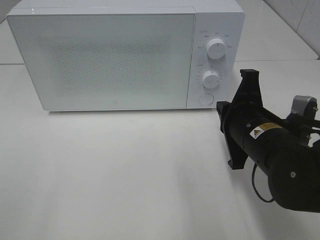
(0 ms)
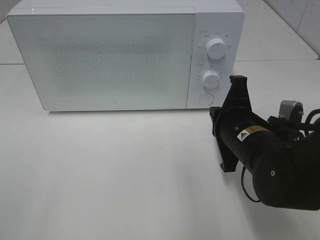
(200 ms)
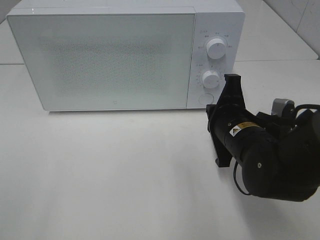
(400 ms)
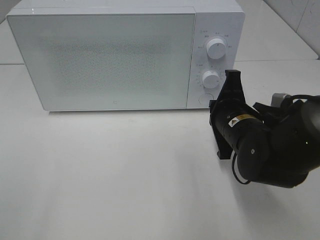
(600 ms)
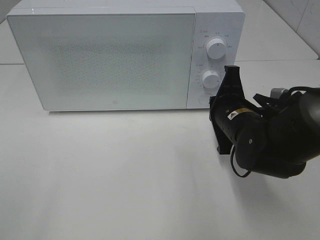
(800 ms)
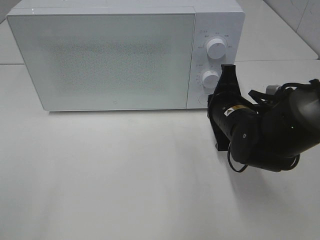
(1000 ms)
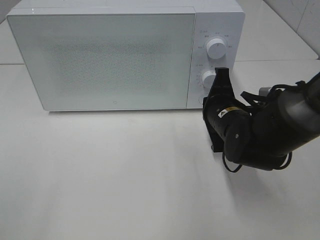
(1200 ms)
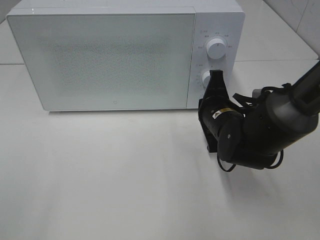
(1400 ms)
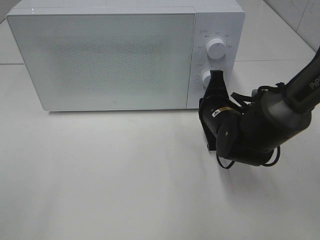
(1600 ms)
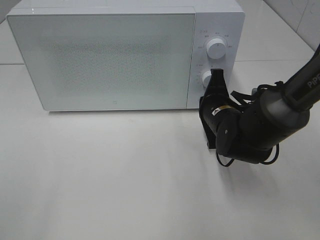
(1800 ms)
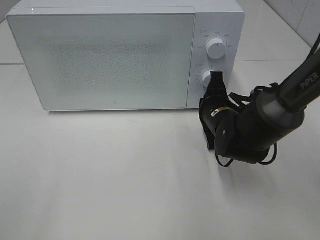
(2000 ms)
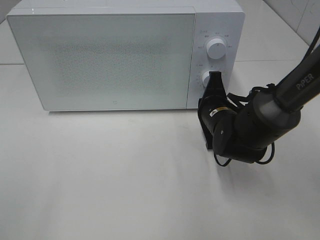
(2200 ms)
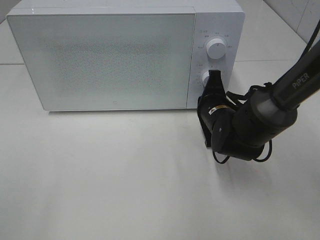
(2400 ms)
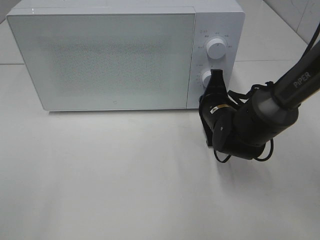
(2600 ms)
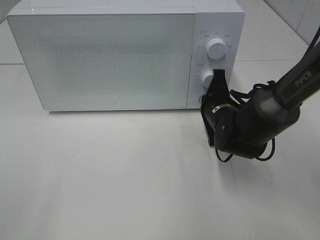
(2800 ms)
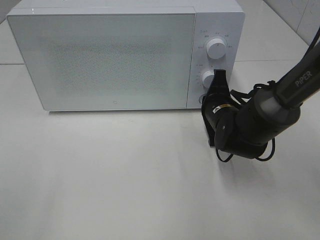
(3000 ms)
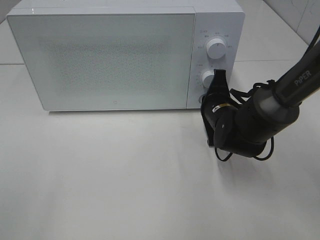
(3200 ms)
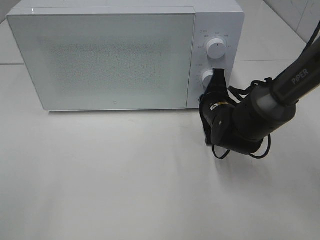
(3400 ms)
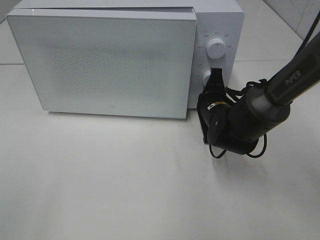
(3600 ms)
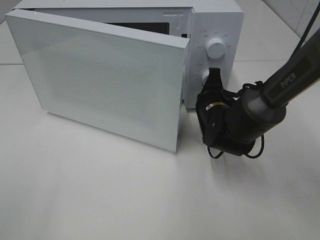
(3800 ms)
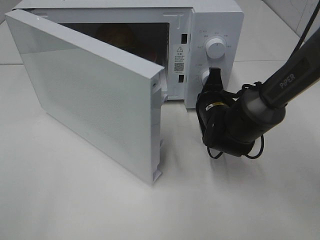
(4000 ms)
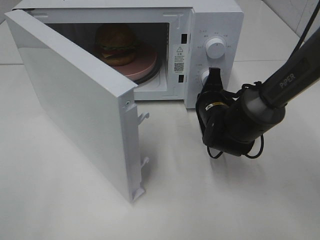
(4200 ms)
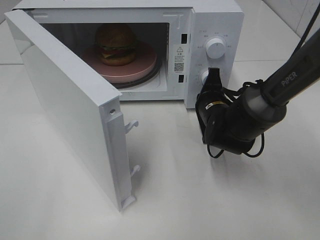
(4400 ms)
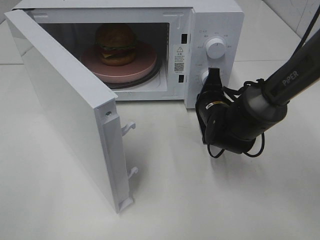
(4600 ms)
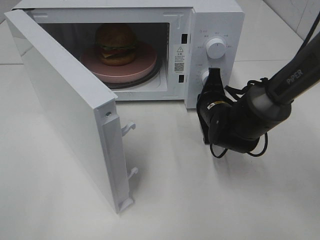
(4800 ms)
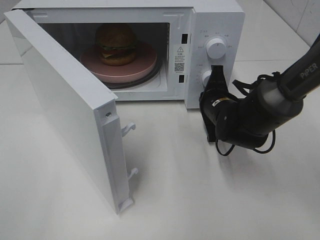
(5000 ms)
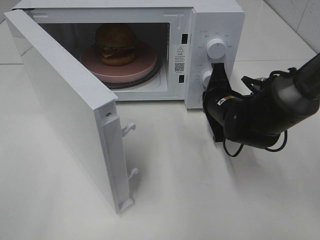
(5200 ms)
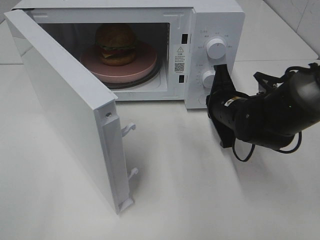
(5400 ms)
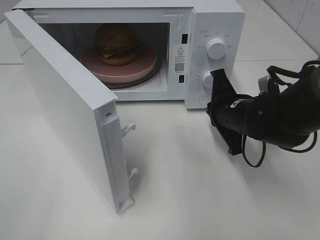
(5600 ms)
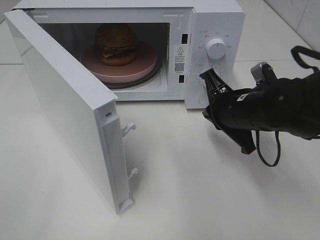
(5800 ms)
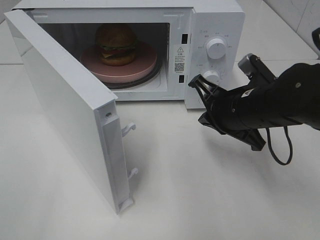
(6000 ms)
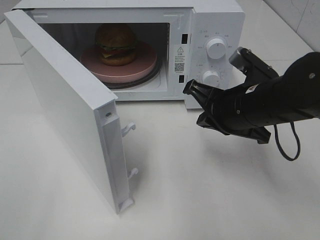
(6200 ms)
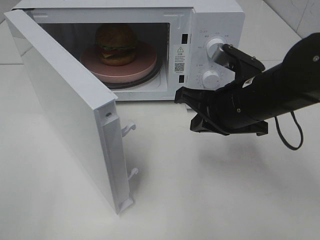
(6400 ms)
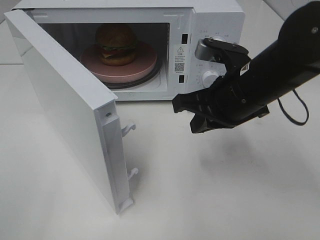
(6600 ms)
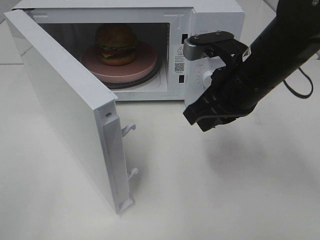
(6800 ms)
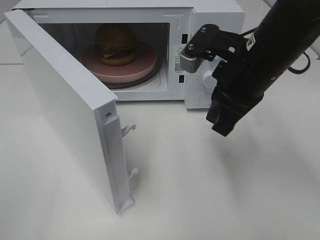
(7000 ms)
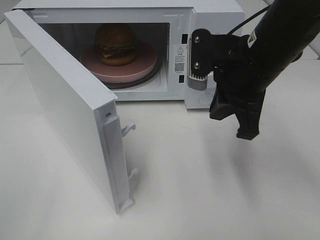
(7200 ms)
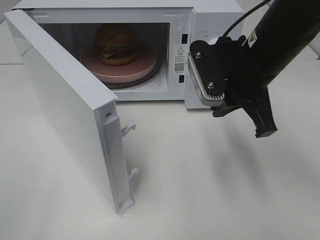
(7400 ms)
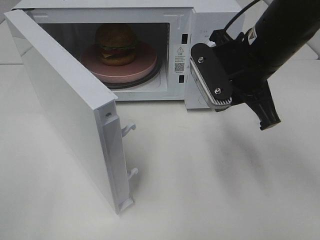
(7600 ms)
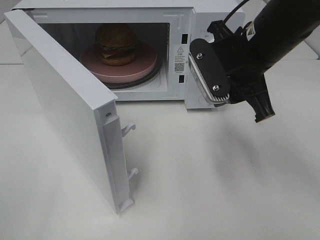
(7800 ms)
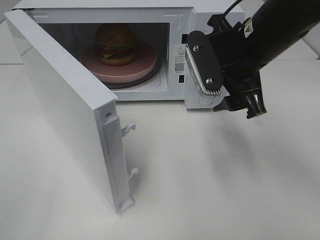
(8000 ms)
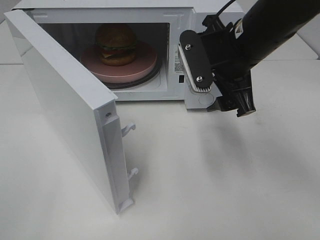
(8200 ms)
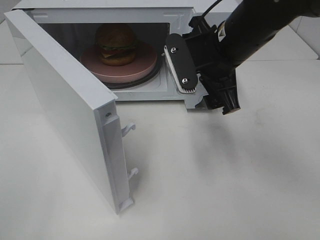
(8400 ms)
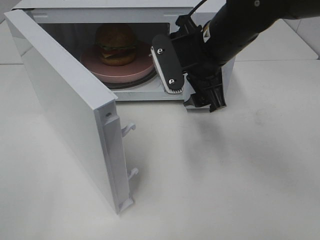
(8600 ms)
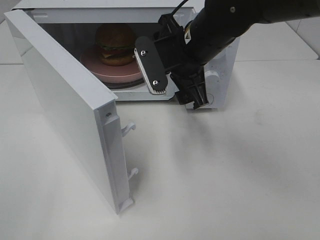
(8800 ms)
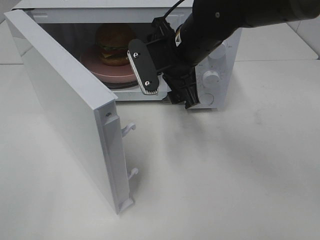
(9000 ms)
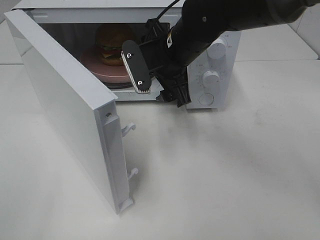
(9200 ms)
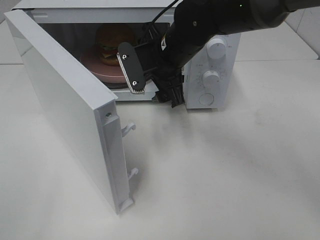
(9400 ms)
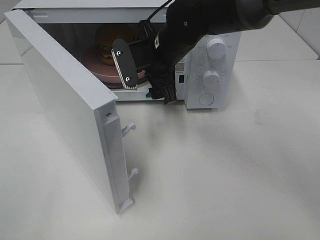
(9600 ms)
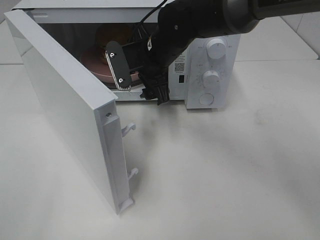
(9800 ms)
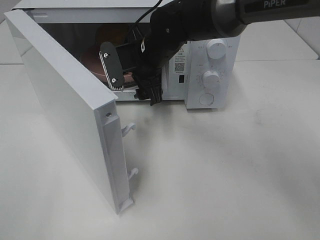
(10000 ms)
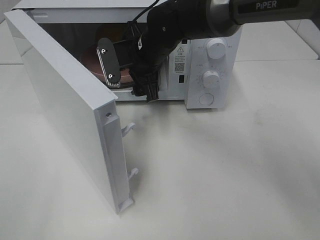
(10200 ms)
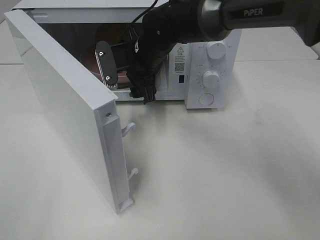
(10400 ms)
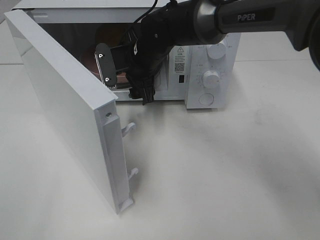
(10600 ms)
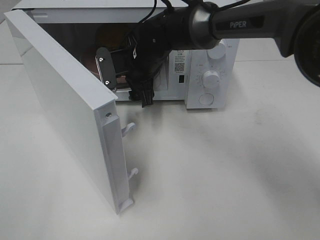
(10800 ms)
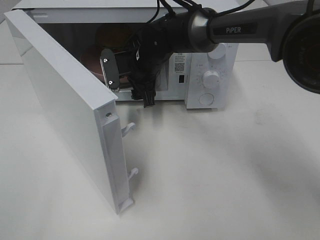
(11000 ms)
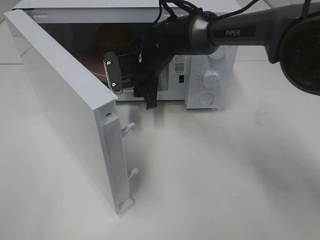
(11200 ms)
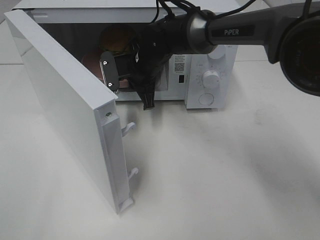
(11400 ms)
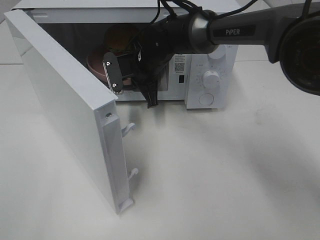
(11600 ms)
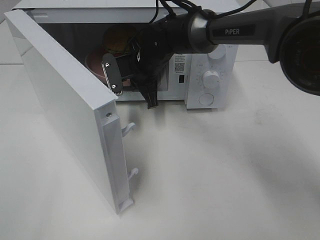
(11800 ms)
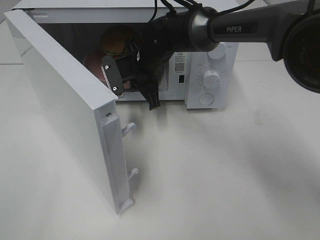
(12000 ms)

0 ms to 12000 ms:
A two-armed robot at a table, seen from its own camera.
Task of the whole recording: Heat the burger.
Step, 0 ms to 5200 ms: Right hand: press the switch.
Step, 5400 ms to 11400 ms: Right hand: grab the plate with the hamburger.
0 ms to 1600 ms: The right gripper travels forward and downward by about 10 cm.
1600 ms to 3000 ms: There are only small adjustments of the grippers.
4400 ms to 6000 ms: The right gripper heads backward and upward, covering approximately 10 cm.
6000 ms to 7600 ms: The right gripper travels upward by about 10 cm.
7600 ms to 9000 ms: The right gripper heads to the left and forward, covering about 10 cm, and opens up.
9000 ms to 10400 ms: The right gripper goes some 10 cm forward and to the left.
10400 ms to 12000 ms: The right gripper closes up.

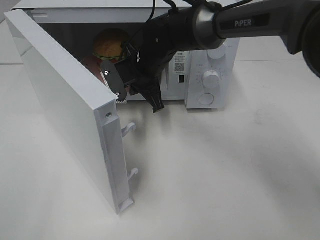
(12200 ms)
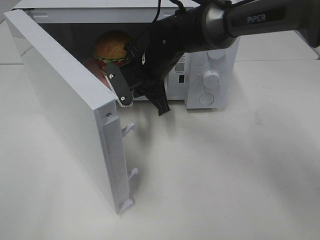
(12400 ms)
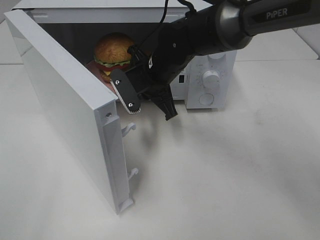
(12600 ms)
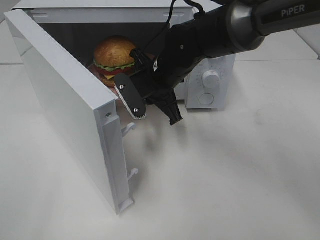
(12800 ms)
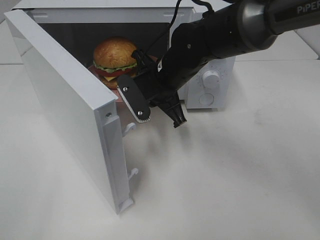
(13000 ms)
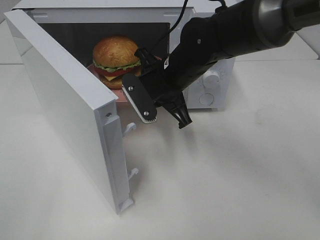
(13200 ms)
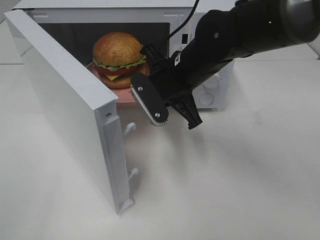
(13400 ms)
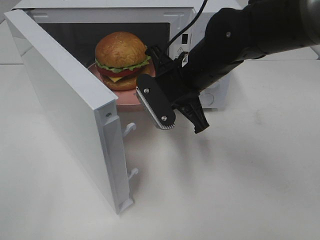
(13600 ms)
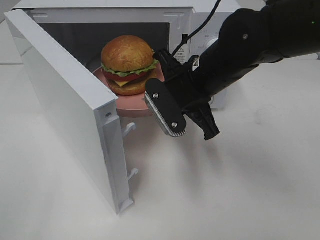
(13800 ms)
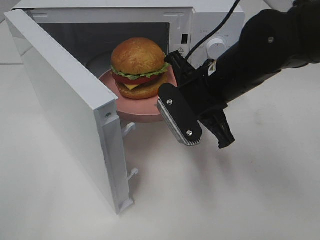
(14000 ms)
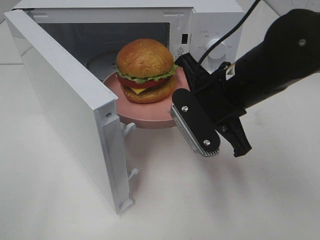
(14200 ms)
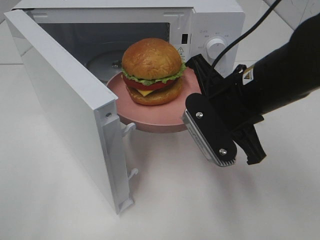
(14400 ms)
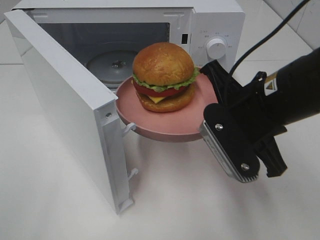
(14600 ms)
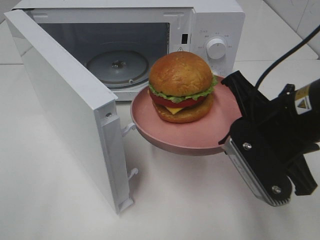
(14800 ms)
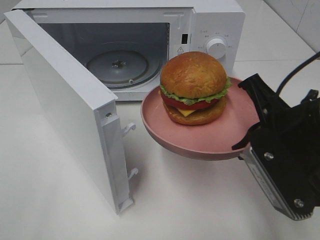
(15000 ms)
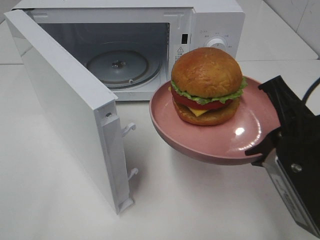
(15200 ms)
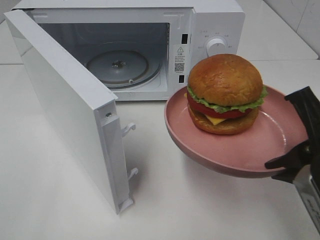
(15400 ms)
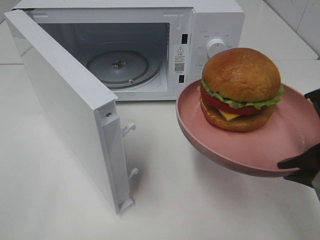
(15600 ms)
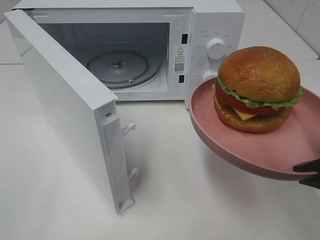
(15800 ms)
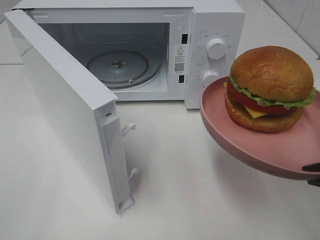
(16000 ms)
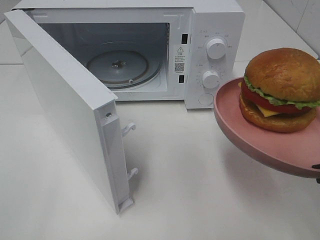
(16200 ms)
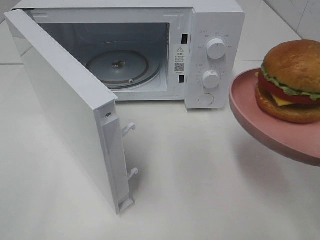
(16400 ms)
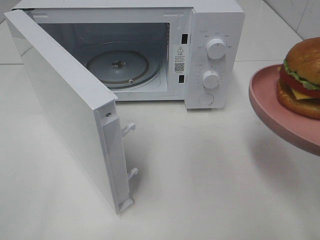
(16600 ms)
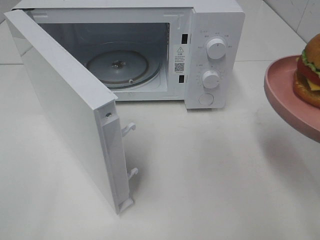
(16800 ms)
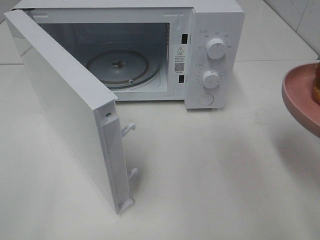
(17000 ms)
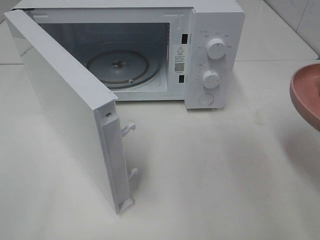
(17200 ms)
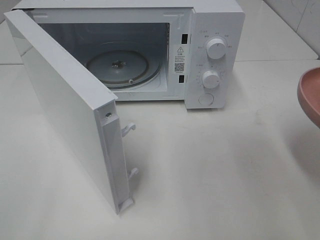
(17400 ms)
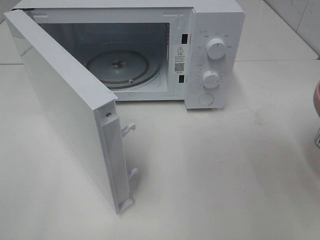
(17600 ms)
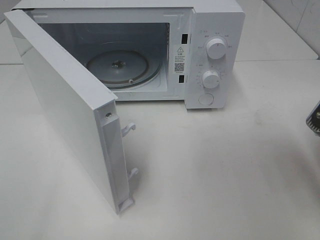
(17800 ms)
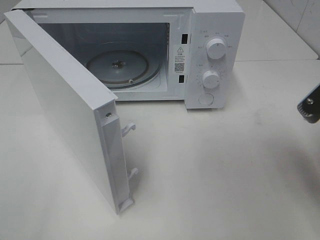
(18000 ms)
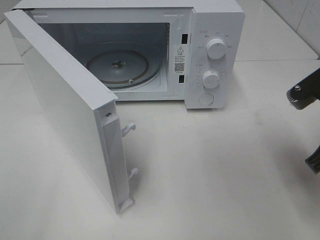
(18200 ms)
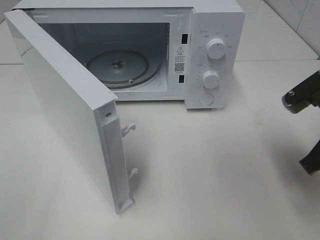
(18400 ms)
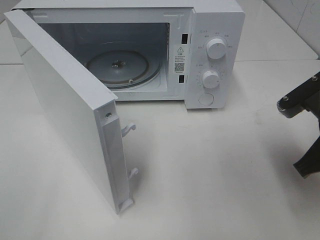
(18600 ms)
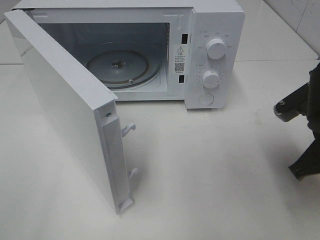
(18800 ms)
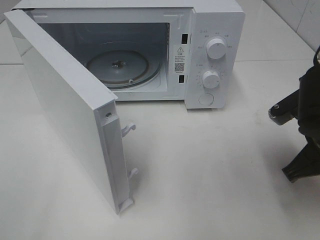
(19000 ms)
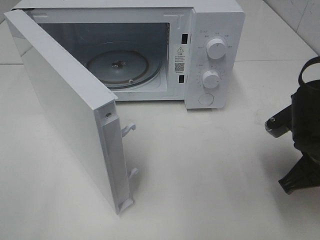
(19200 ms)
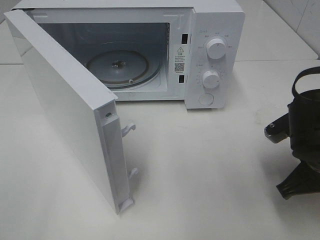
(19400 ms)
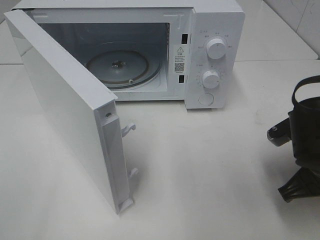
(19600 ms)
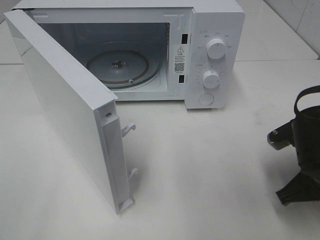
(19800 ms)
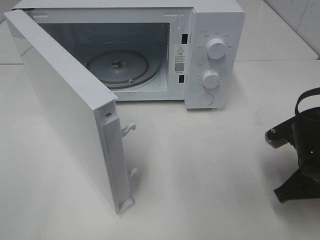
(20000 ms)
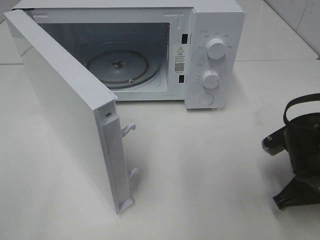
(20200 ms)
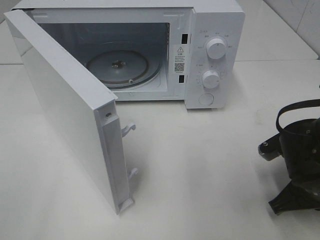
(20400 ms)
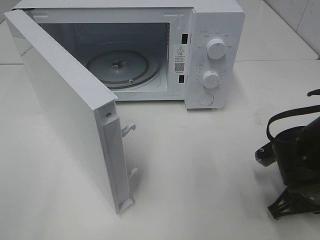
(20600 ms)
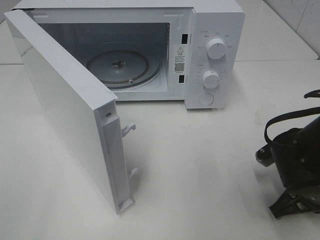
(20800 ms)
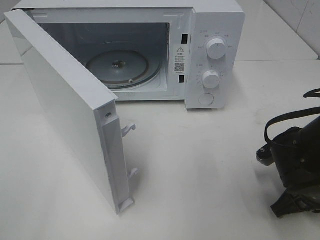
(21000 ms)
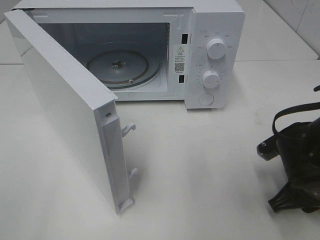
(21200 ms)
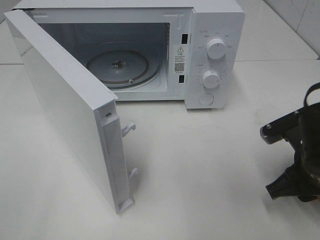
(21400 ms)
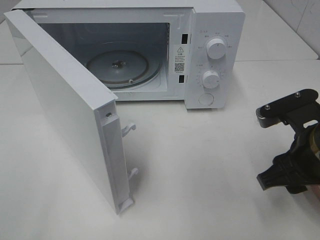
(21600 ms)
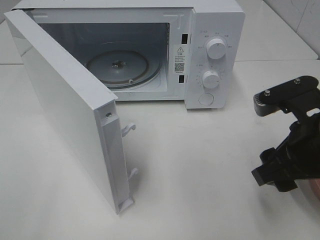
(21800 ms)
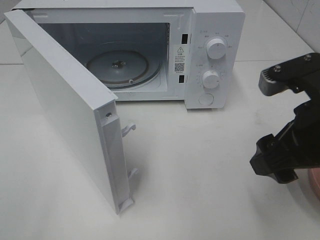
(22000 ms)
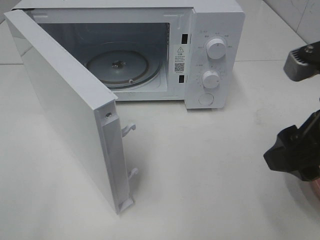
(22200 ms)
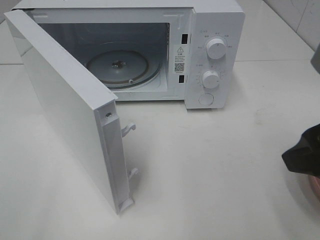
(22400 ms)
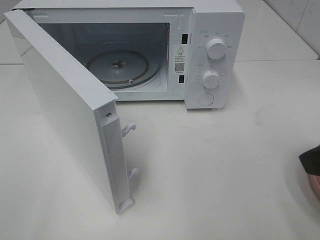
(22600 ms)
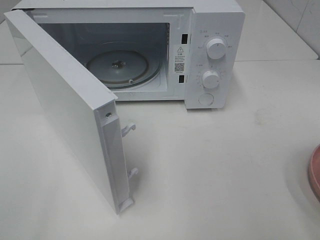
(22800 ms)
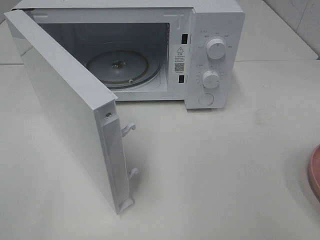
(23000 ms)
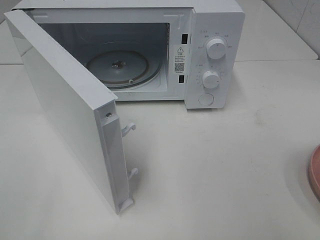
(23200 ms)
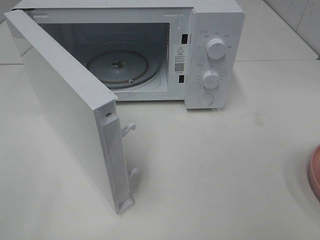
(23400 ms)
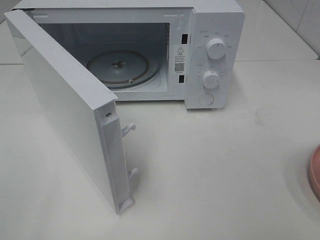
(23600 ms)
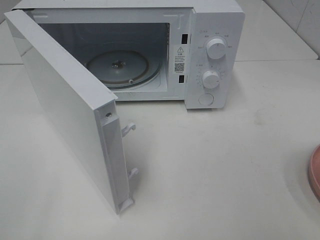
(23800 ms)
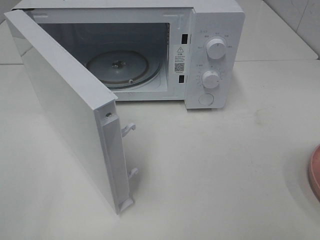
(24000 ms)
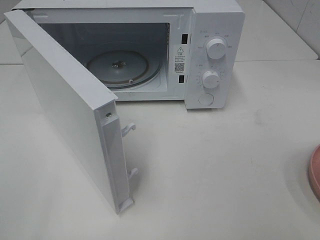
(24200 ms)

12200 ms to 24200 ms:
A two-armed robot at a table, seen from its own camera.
Task of the whole recording: Heat the burger.
Step, 12200 ms to 21200 ms: Right hand: place the plate on the table.
12200 ms to 13800 ms: The right gripper heads backward and to the right, covering roughly 15 cm.
13800 ms to 15200 ms: The right gripper moves backward and to the right, approximately 20 cm.
15200 ms to 16600 ms: The right gripper heads to the right, covering approximately 5 cm.
16600 ms to 18200 ms: The right gripper moves forward, about 10 cm.
18200 ms to 19800 ms: The right gripper is displaced downward by some 10 cm.
19800 ms to 21200 ms: The right gripper opens its fingers.
21200 ms to 22600 ms: The right gripper heads upward and backward, covering approximately 20 cm, and opens up.
22600 ms to 24200 ms: The right gripper travels backward and to the right by approximately 15 cm.
